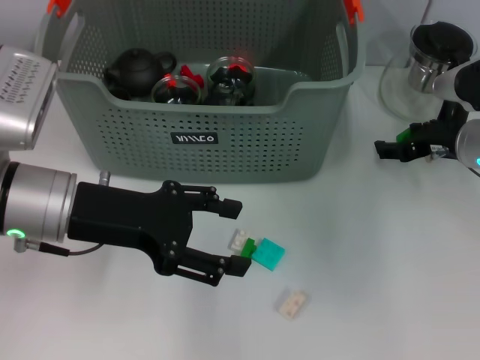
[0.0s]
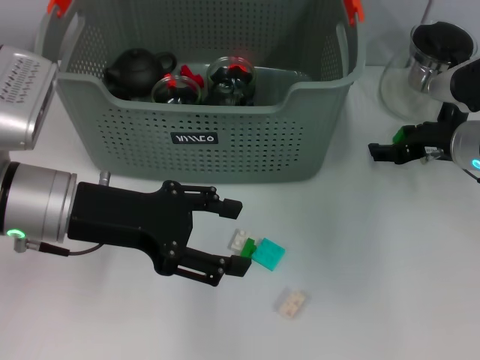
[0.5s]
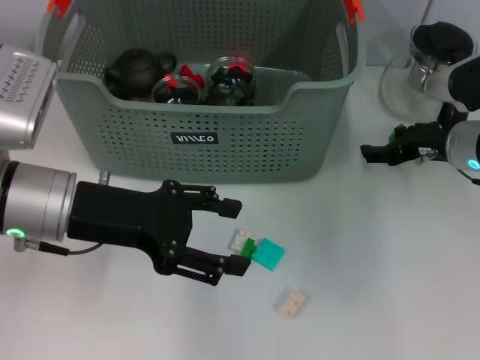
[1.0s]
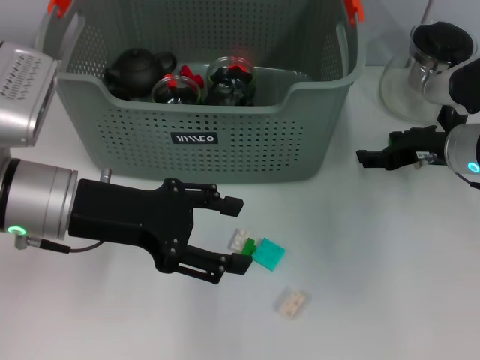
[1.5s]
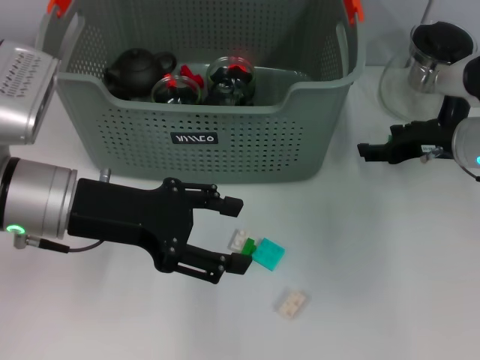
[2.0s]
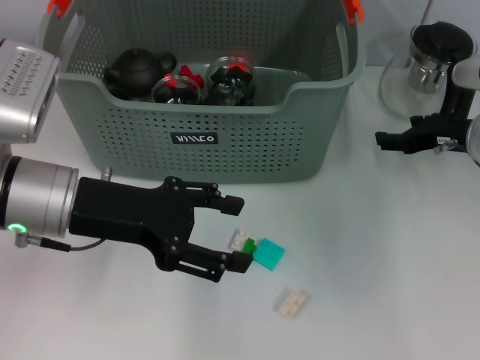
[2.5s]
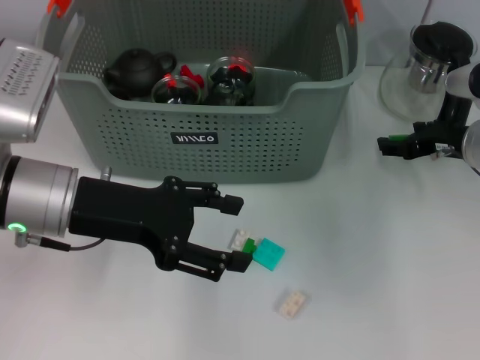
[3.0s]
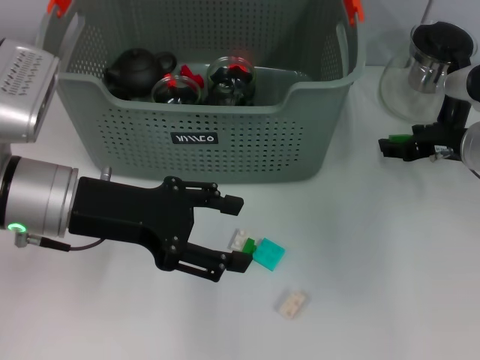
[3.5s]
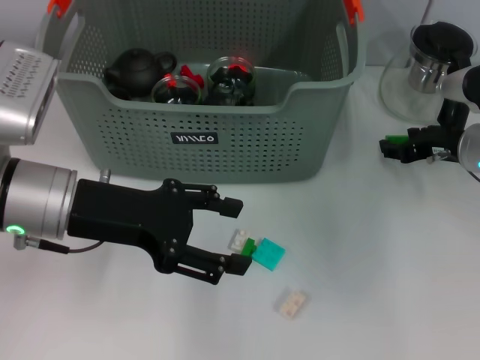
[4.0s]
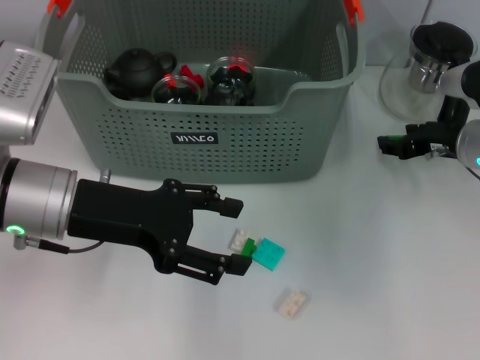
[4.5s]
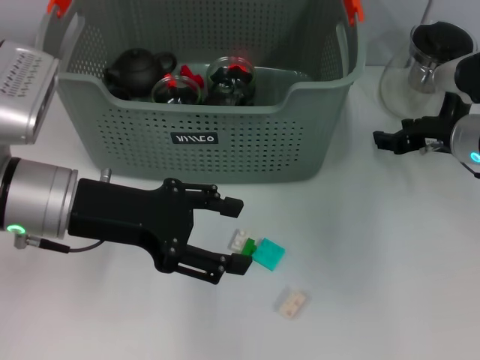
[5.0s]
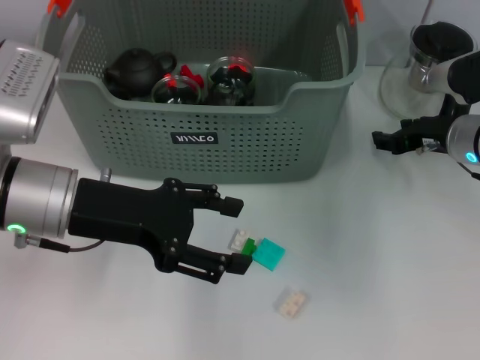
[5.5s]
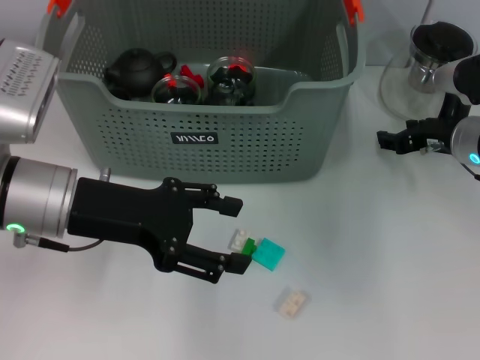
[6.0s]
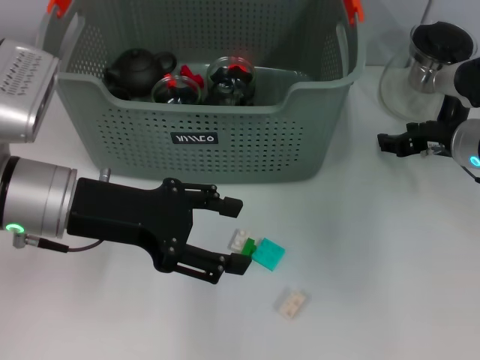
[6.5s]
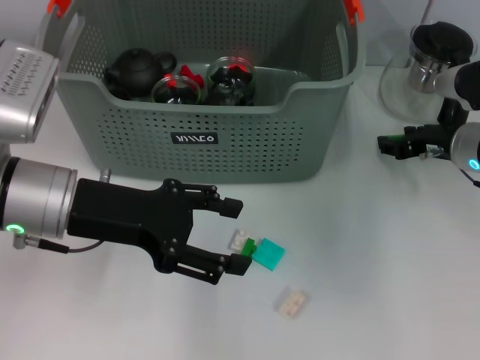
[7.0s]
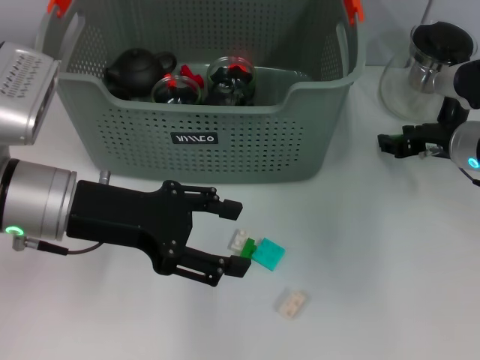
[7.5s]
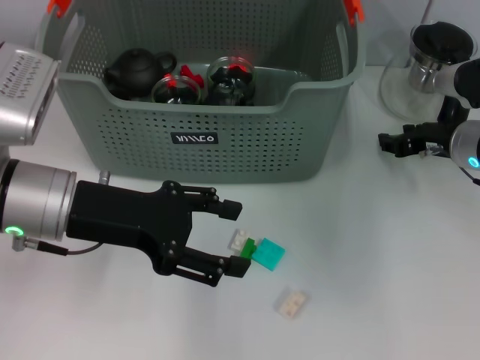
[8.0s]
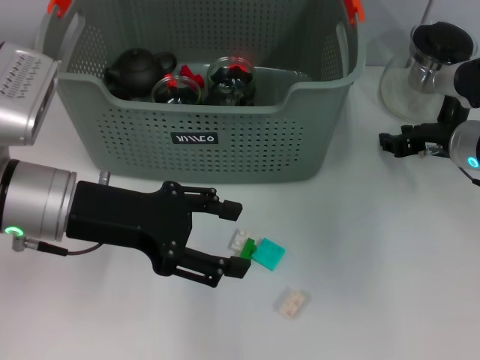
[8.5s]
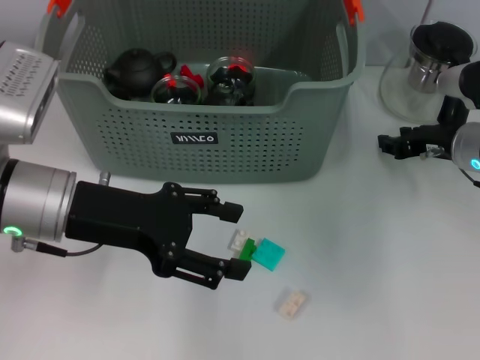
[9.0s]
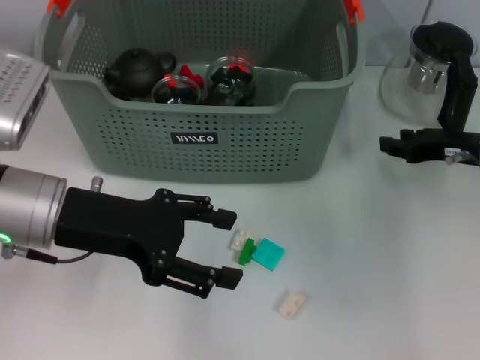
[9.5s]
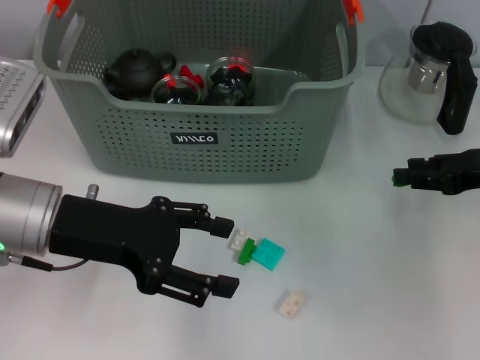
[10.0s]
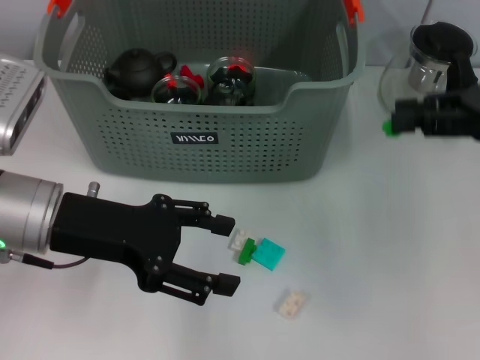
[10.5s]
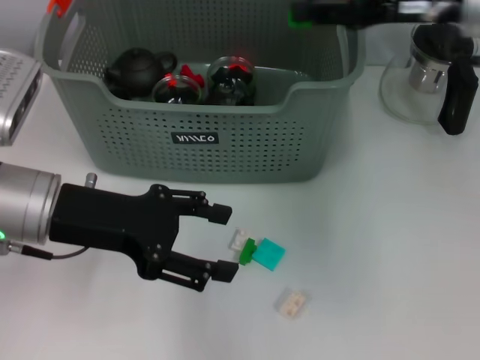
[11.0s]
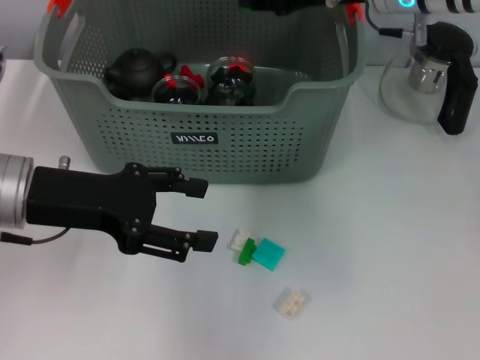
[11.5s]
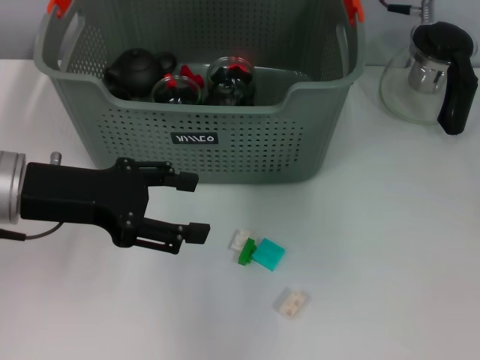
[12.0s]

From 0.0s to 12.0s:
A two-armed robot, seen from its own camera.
Task of the whole recording: pick up the teacup on the table and place it into the storage bin, pick up the block on the table and place it into the storage bin.
Step, from 0.0s to 9.0s: Grasp the green block with right gripper.
Step, from 9.5s to 11.5s: Place the green block in the storage box with right gripper.
From 0.0s to 6.0s: The grippers make only small movements.
From 6.0s to 8.0s: Both grippers stay about where they are.
From 8.0s to 10.0s: The right gripper heads backward, to the right and upward, covering approximately 10 cm.
From 10.0s to 12.0s: The right gripper is displaced to the left, upward and forward by some 25 cm.

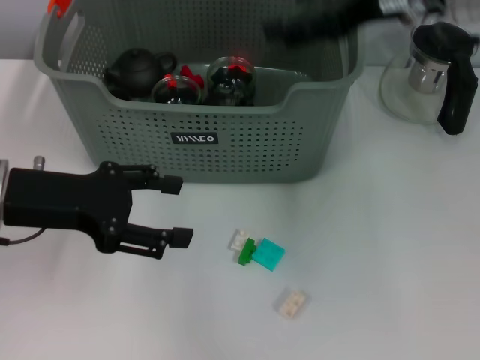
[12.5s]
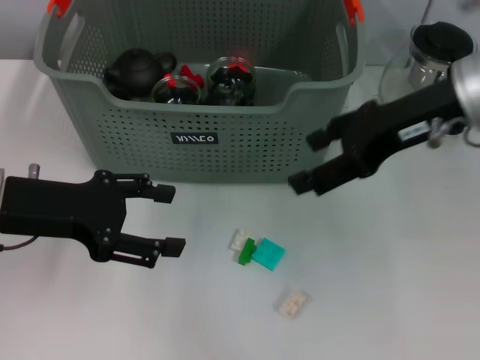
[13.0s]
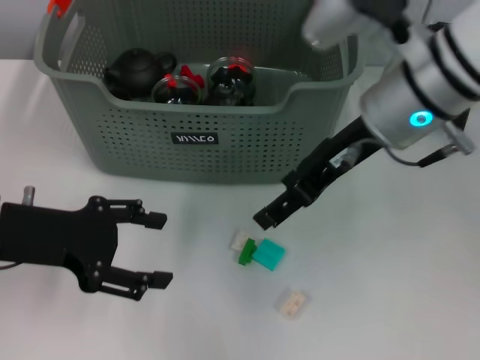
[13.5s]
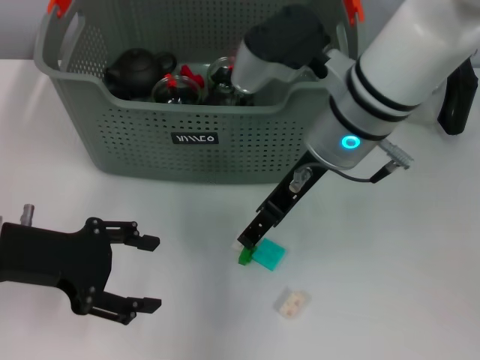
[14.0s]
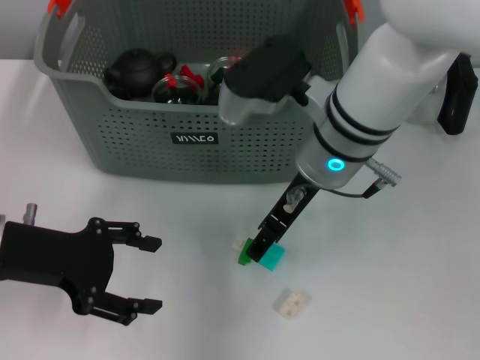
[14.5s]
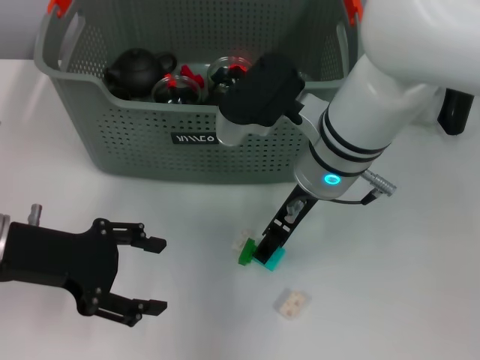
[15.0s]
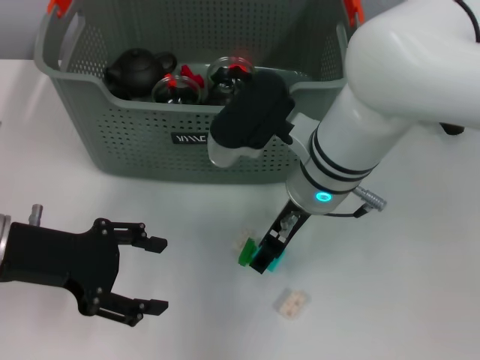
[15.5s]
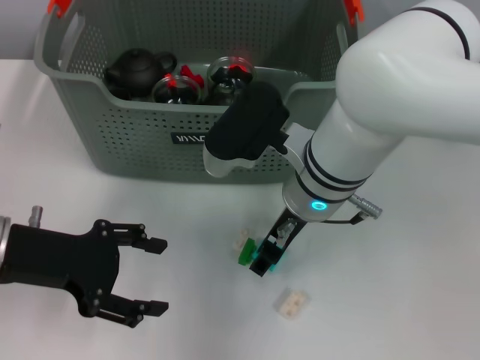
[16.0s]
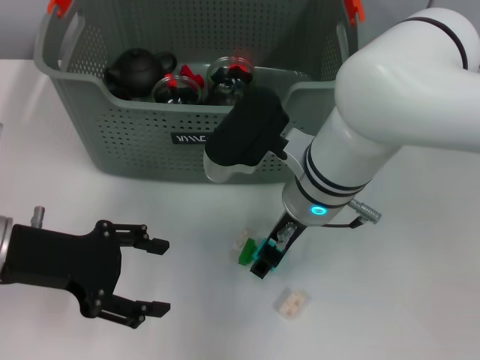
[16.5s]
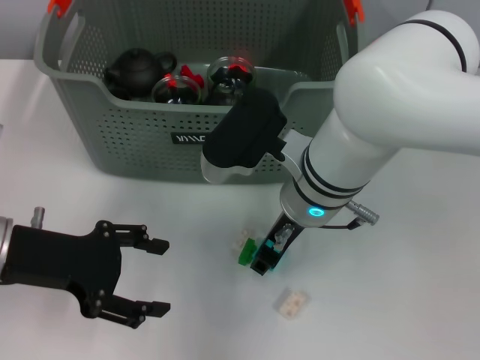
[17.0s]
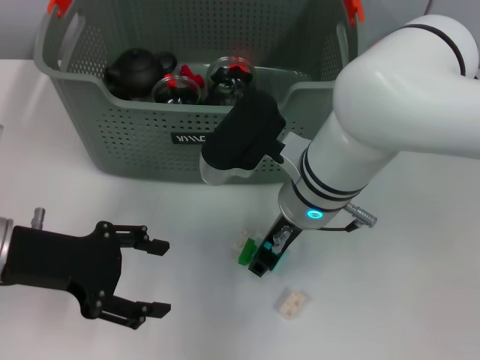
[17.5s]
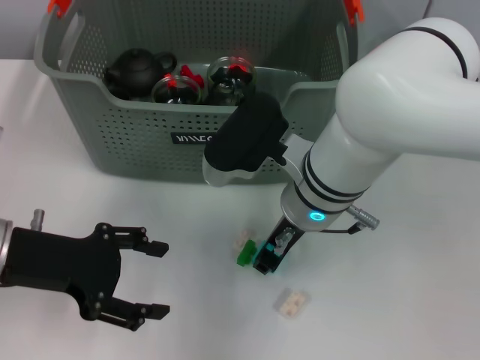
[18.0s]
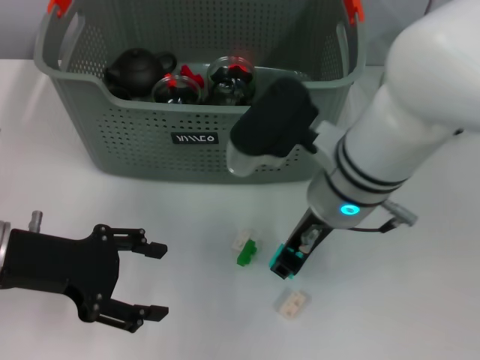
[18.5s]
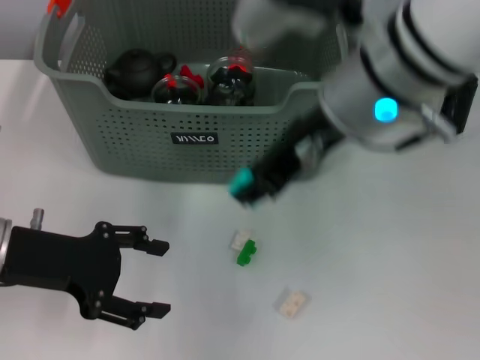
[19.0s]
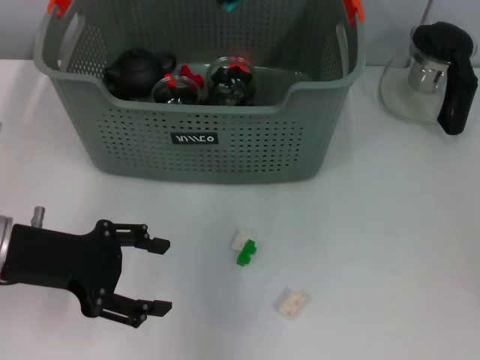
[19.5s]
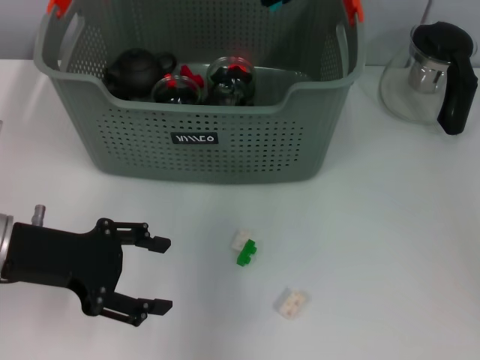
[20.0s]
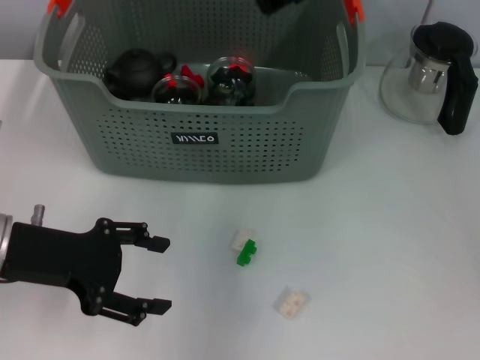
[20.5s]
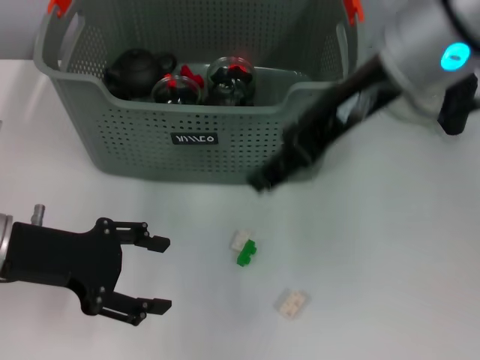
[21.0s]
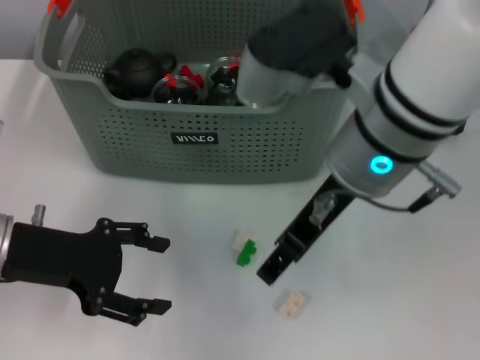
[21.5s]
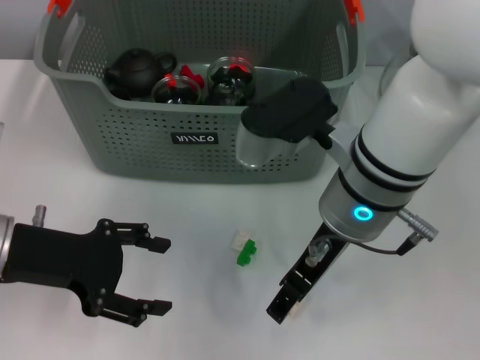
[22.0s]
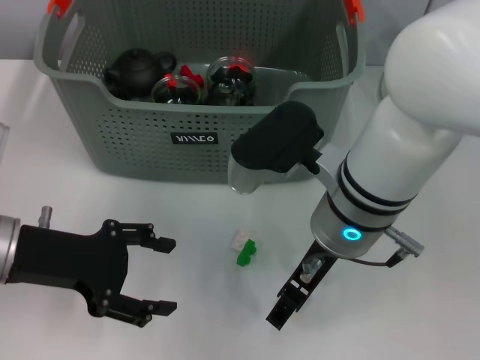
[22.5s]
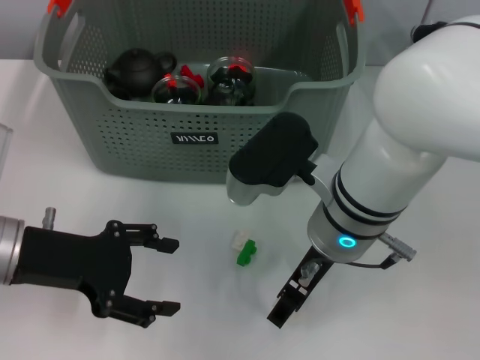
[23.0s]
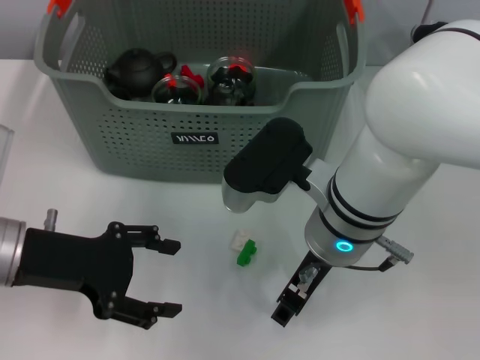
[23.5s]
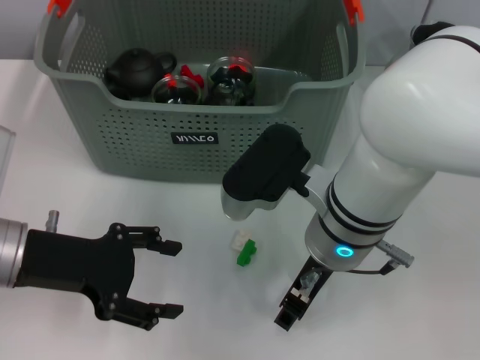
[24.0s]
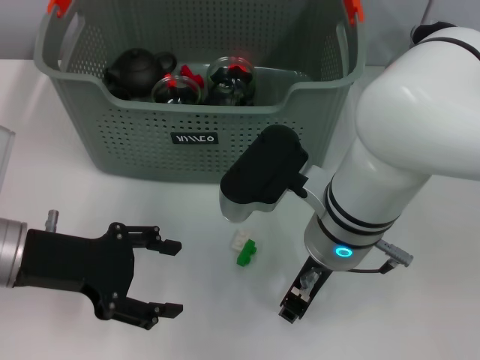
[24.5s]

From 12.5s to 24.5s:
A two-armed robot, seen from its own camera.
Task of the whole recording: pick up the teacup on the table and place it into the storage bin, pick up the block on the table and place it into the storage bin.
Step, from 12.5s to 17.5s: Grasp the light blue block with right gripper.
Step, from 18.0s to 20.0s: Place the light blue block in the storage box with right gripper.
Step, from 20.5s to 24.5s: Grasp the white block with right gripper.
From 12.5s to 14.5s: The right gripper moves to the left and downward, roughly 15 cm.
From 16.5s to 18.5s: The right gripper closes.
From 18.5s to 20.5s: The right gripper is displaced upward and forward by approximately 20 cm, and opens up.
From 20.5s to 22.5s: The right gripper shifts some 20 cm downward and backward.
From 22.5s to 24.5s: There are only small adjustments of the grippers.

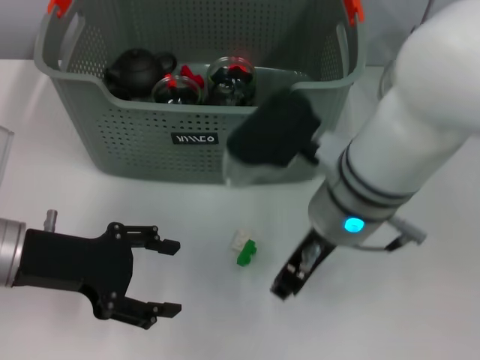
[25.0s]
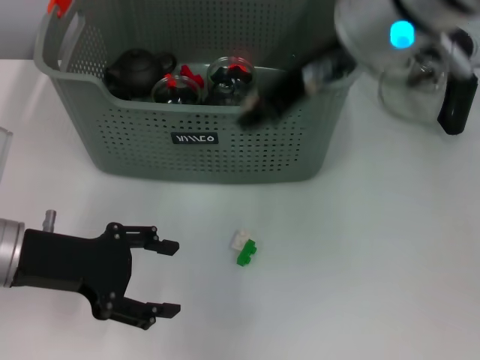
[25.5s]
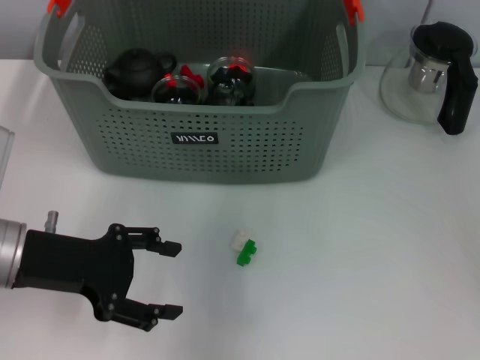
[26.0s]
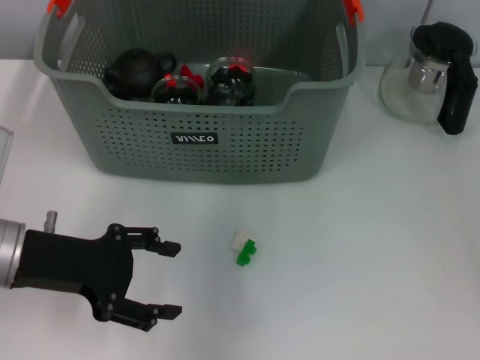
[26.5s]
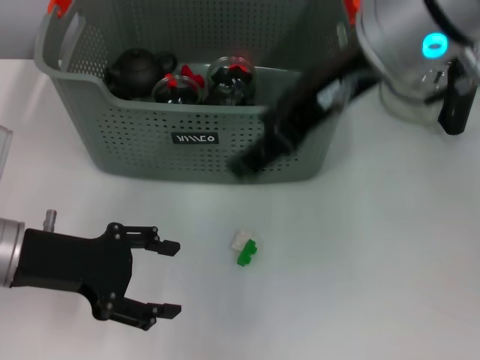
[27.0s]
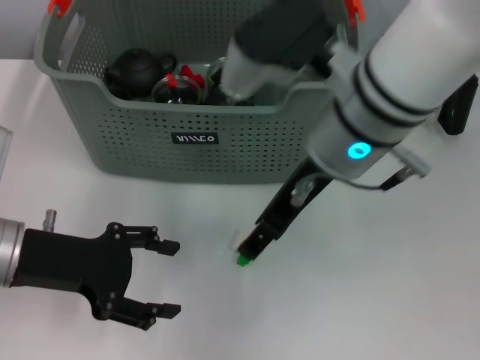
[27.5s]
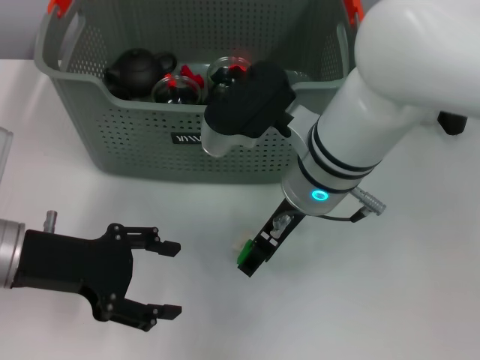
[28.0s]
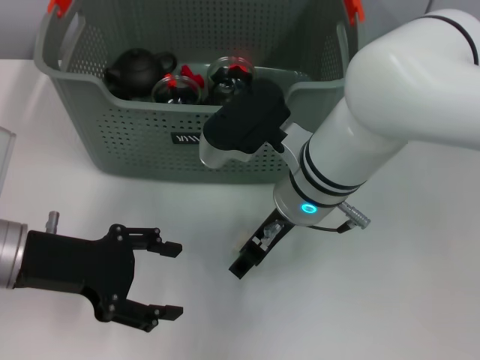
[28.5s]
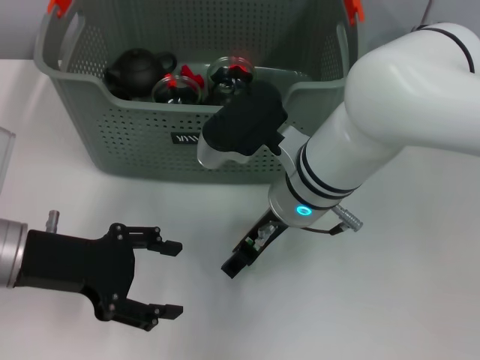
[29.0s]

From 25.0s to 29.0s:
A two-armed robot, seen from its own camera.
Task of the whole recording: pick up the teacup on the table and place it into the storage bin, pick up the block on the table and place it into the storage bin.
Step, from 25.0s to 26.0s: Place the white block in the storage box with right gripper.
From 25.0s to 27.0s: The right gripper goes some 15 cm upward, and opens.
From 27.0s to 29.0s: The right gripper travels downward by roughly 20 cm.
